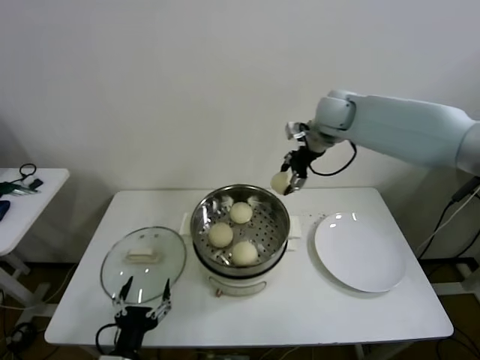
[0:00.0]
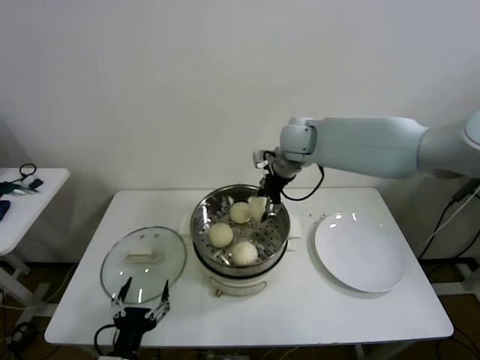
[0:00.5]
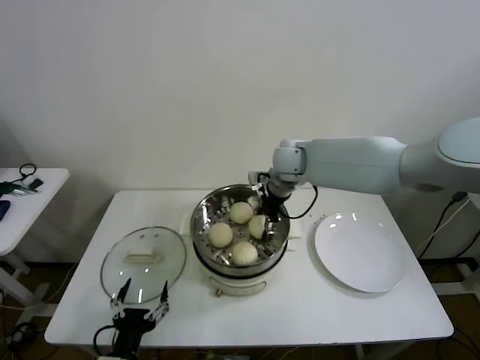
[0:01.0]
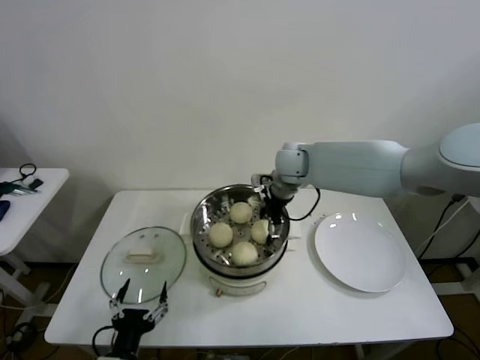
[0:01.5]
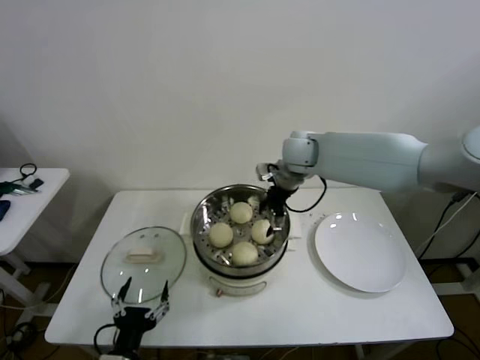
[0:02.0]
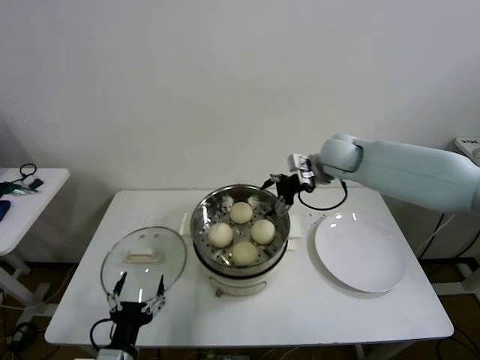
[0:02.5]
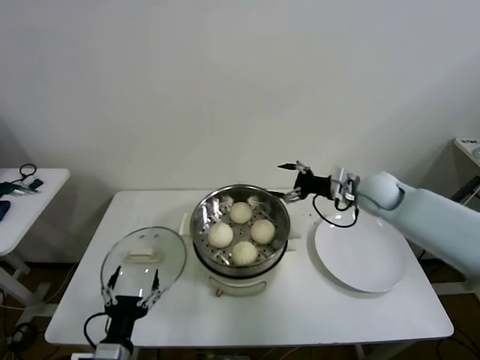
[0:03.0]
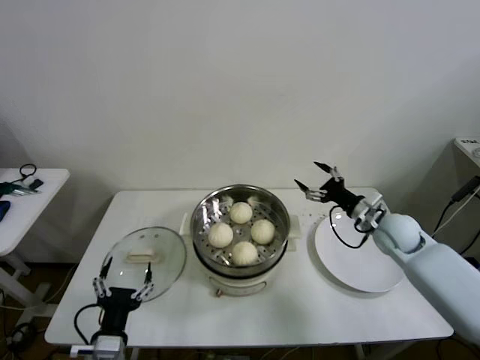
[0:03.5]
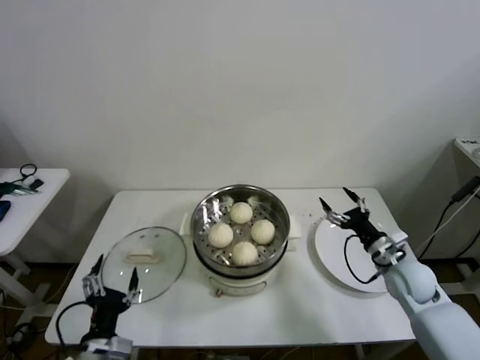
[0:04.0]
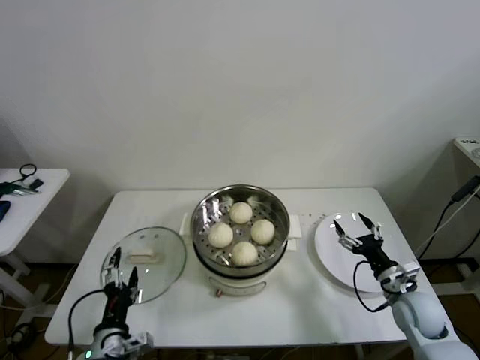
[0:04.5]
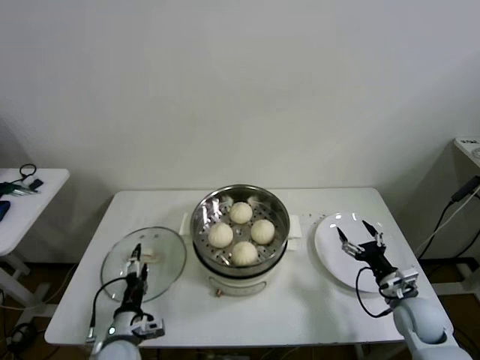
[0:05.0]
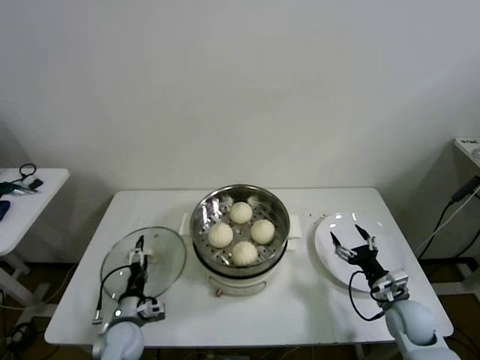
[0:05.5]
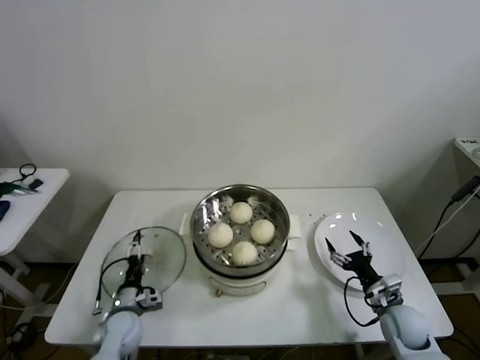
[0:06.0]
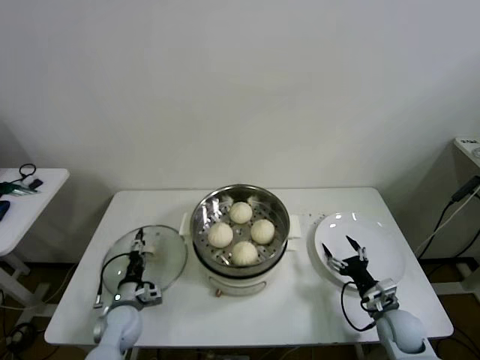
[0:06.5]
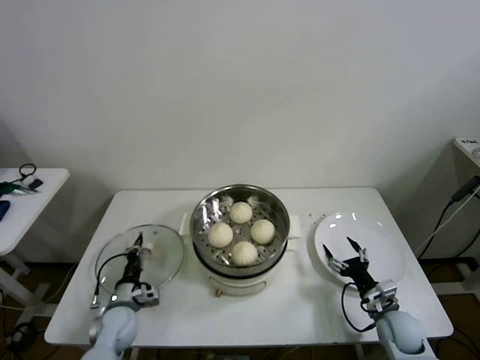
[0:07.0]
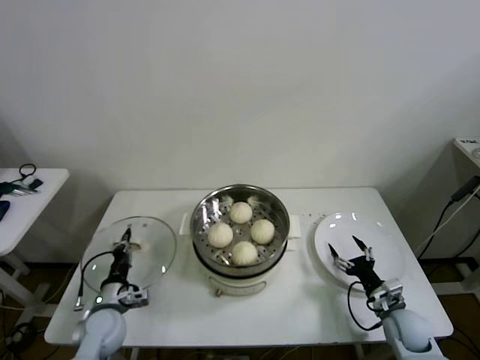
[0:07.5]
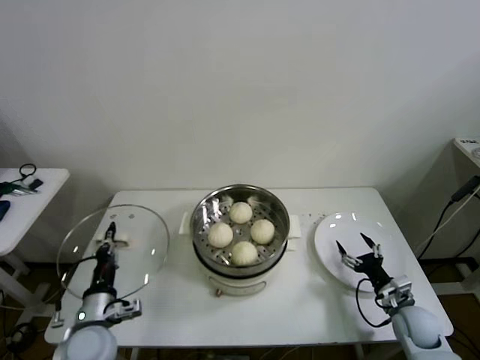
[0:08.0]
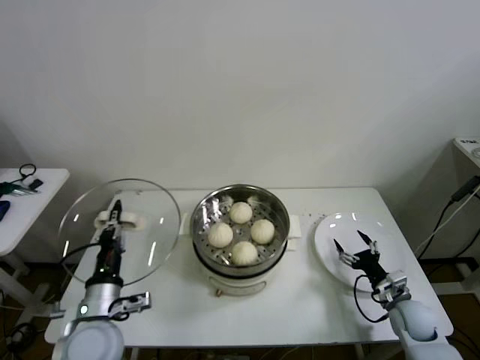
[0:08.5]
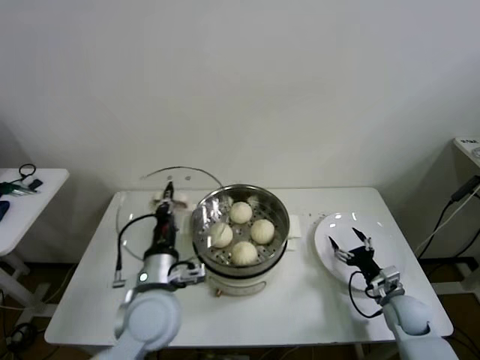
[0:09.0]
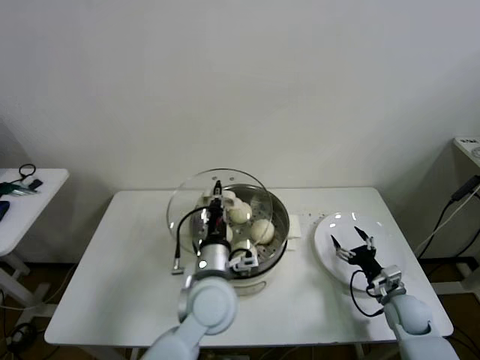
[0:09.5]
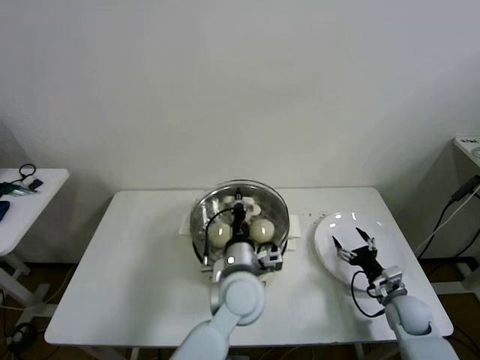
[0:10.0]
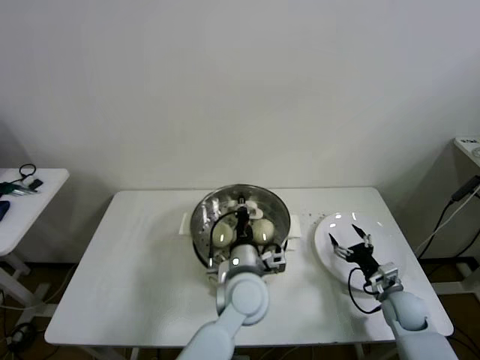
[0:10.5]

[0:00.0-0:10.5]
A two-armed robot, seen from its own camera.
Step, 0:00.0 to 0:01.5: Place the baozi on the steamer with right gripper.
Step, 0:02.0 to 0:07.0: Grasp the pot lid with left gripper.
0:00.0 to 0:02.0: The right gripper heads downward and to the left, covering about 10 cm, and opens.
0:02.0 to 0:04.0: The right gripper shifts roughly 40 cm to the right, downward and backward.
0:04.0 to 0:06.5: The right gripper travels downward and backward by some 15 cm, while the left gripper moves forward and downward, some 20 cm.
0:06.5 to 0:08.5: The left gripper goes approximately 20 cm upward and backward, and closes its fingers.
0:08.5 to 0:10.5: The left gripper is displaced to the right by some 25 cm.

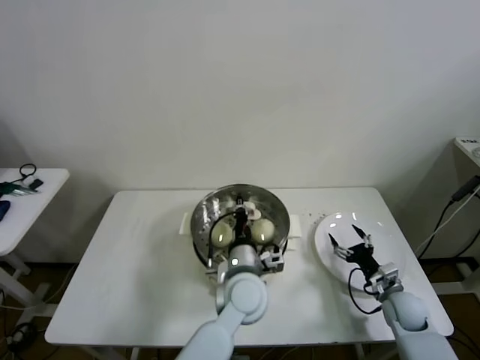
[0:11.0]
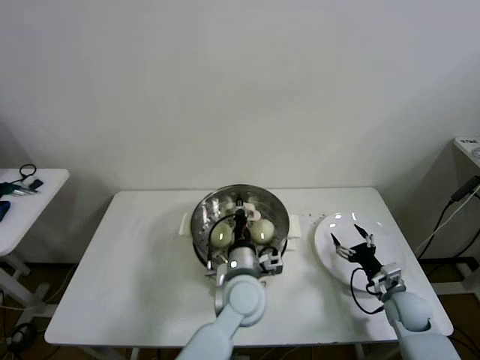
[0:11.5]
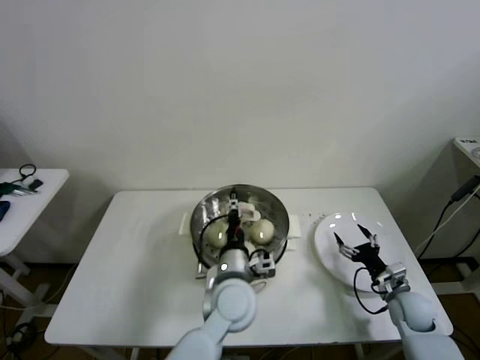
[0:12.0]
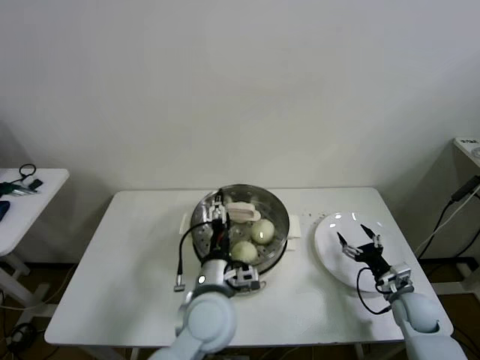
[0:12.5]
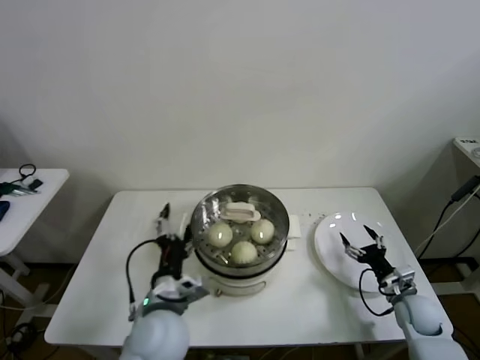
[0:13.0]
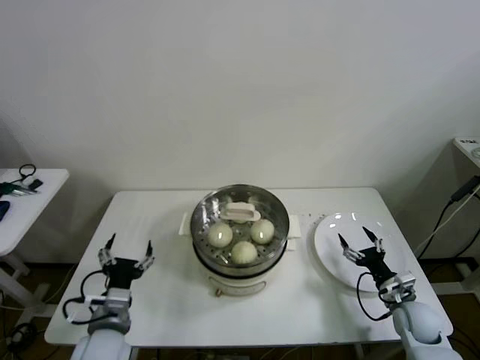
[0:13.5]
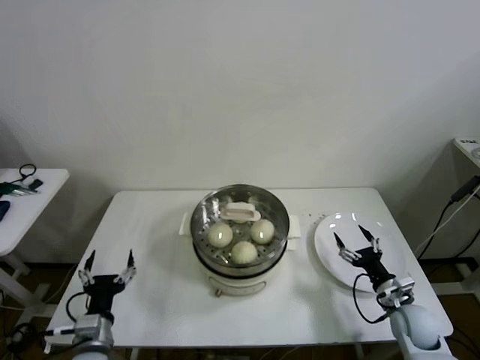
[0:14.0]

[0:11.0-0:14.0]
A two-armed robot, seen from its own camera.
0:11.0 to 0:12.5: The left gripper heads to the left, covering approximately 5 cm, and opens up.
0:12.5 to 0:14.0: The left gripper goes about 25 cm to the left.

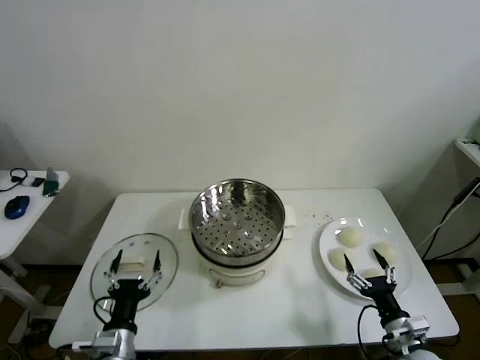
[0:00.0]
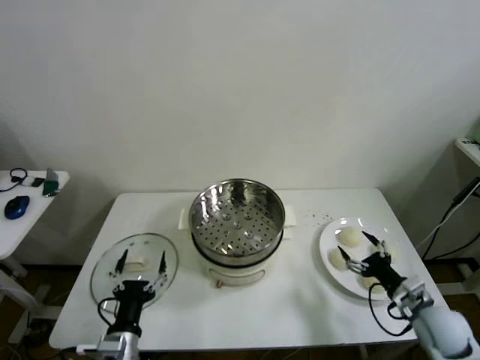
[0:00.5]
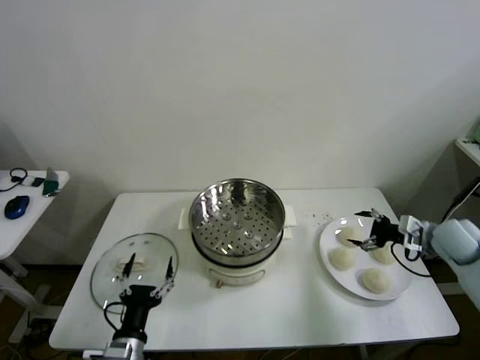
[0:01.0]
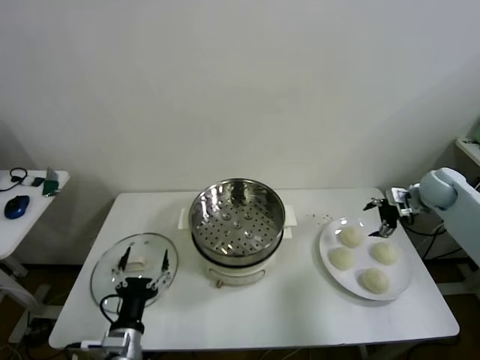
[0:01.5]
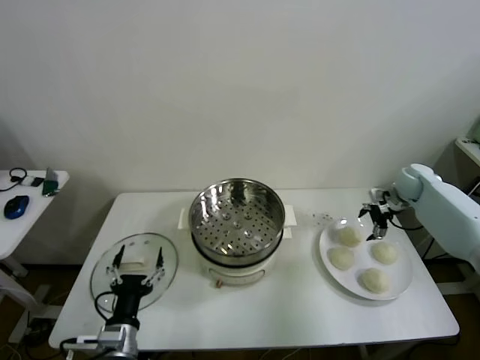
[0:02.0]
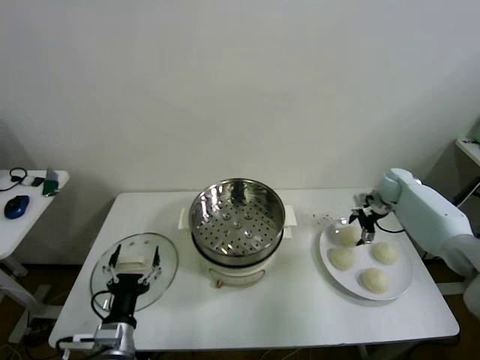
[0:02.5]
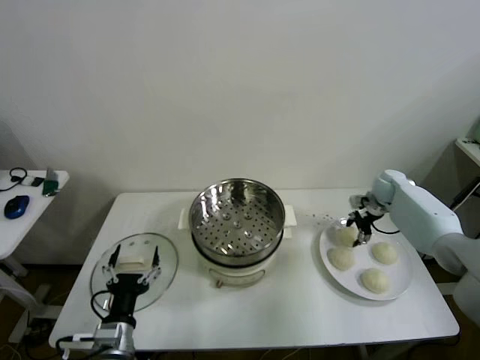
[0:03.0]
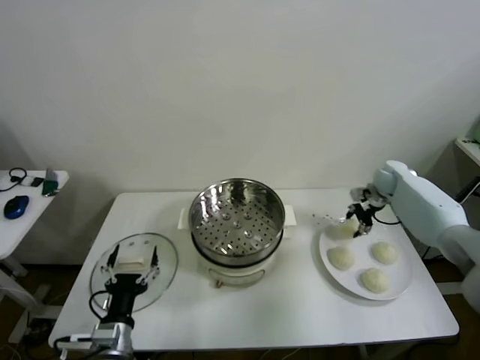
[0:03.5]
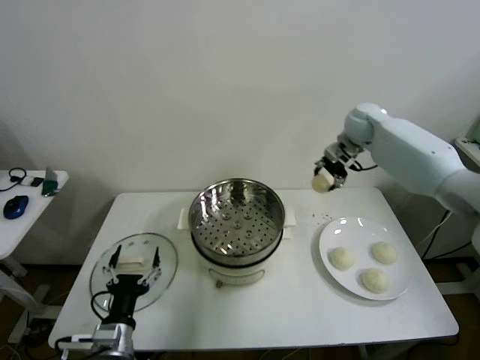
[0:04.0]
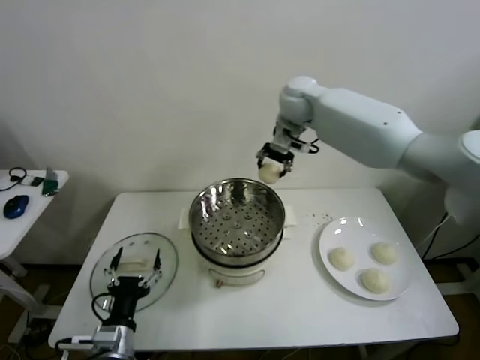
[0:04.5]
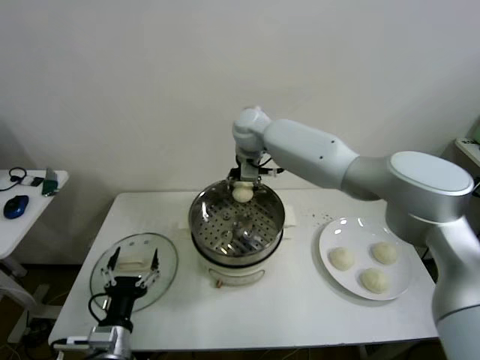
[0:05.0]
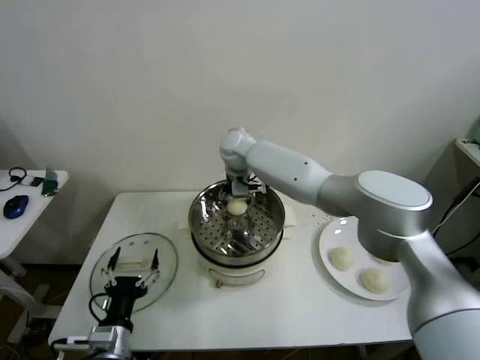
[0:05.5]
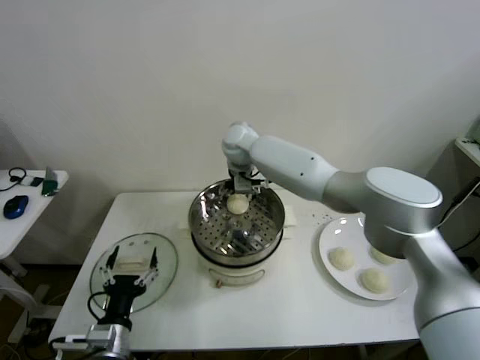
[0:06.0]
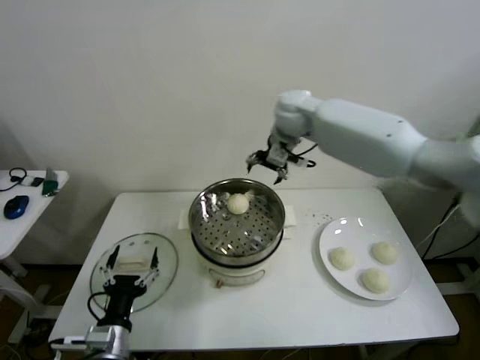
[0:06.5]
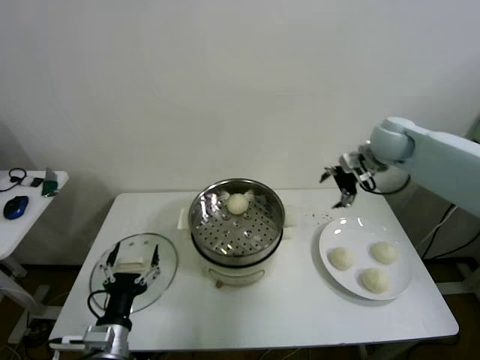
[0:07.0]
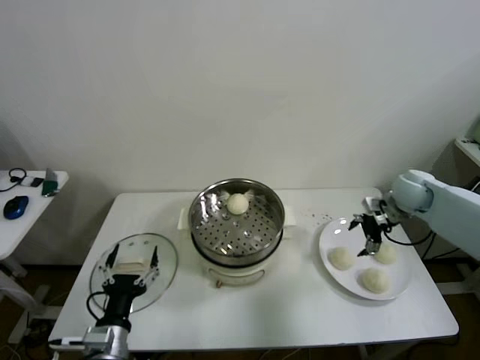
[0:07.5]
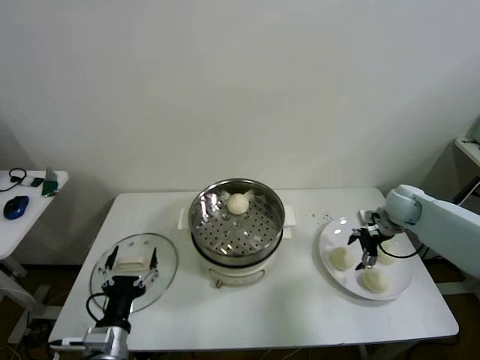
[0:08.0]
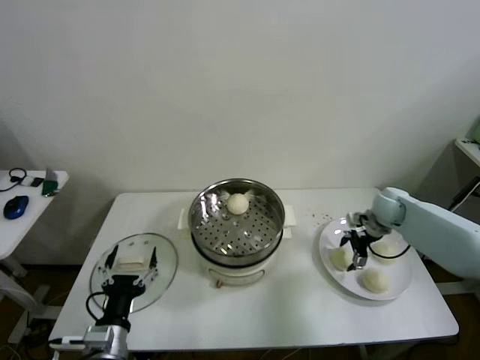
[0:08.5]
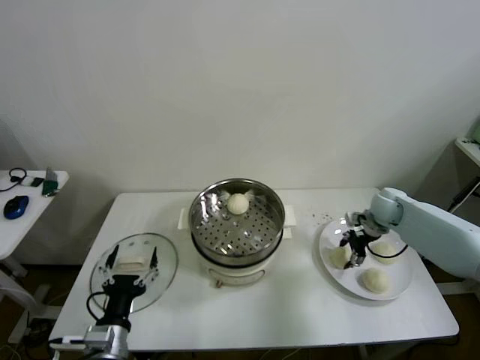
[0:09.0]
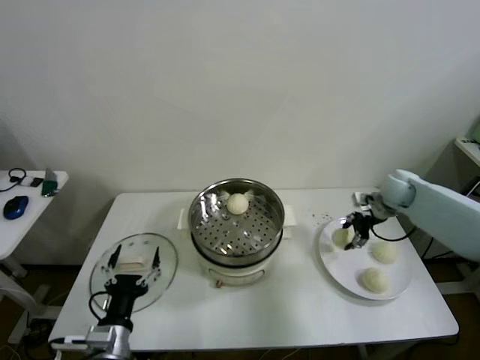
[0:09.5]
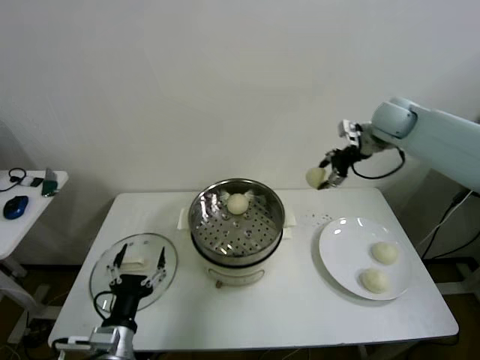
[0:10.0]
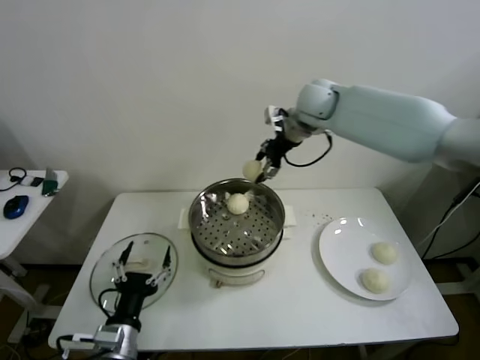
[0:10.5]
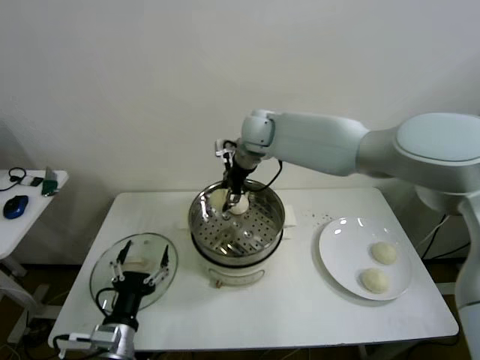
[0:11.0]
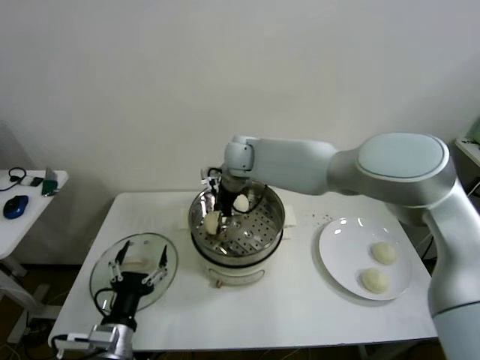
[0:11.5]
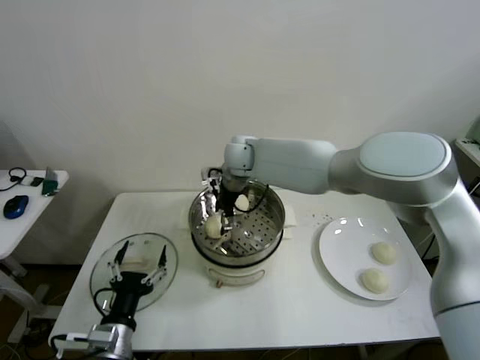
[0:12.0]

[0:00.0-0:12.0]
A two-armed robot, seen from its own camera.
Step, 0:00.0 to 0:03.0: Grasp the baozi in the plate with right gripper.
Step, 0:03.5 to 0:05.5: Place the baozi on the steamer with right gripper.
Step, 0:06.0 to 0:09.0: Grasp the baozi in the plate with right gripper.
Step, 0:09.5 to 0:11.5: Place the baozi on the steamer with right gripper.
0:02.0 to 0:04.0: The right gripper is displaced to the left, upward and forward by roughly 25 cm, and closes up.
0:04.0 to 0:06.0: The right gripper shifts about 30 cm to the left, and opens.
0:06.0 to 0:08.0: The right gripper shifts about 40 cm to the right.
0:08.0 to 0:10.0: The right gripper goes some 20 cm upward, and closes.
0:10.0 to 0:12.0: The right gripper heads to the left, covering about 35 cm, and opens up.
